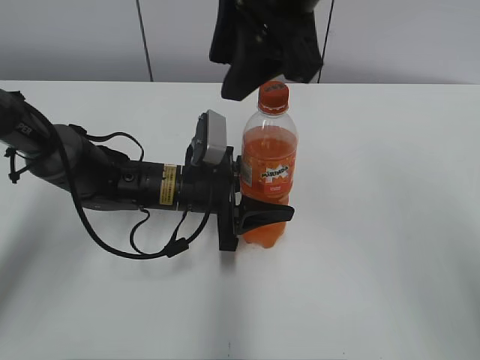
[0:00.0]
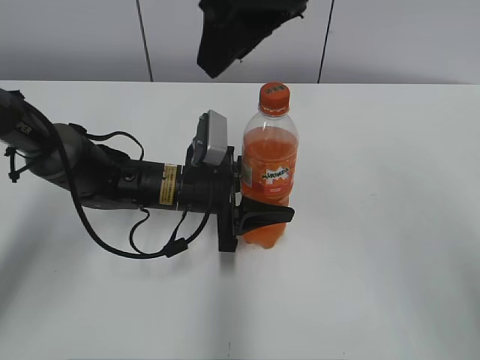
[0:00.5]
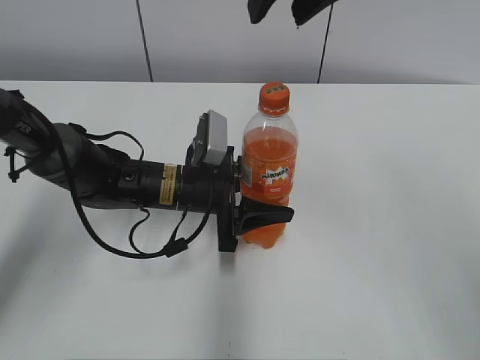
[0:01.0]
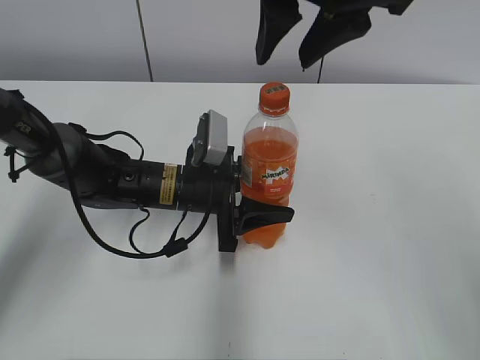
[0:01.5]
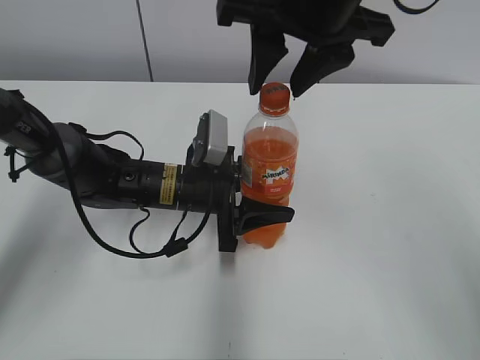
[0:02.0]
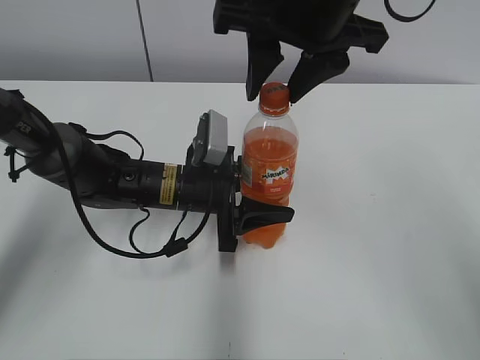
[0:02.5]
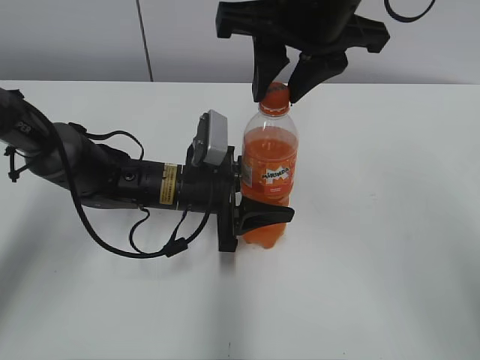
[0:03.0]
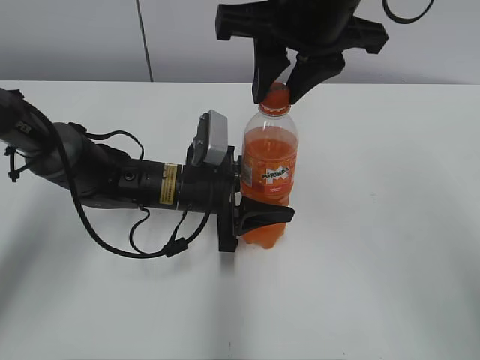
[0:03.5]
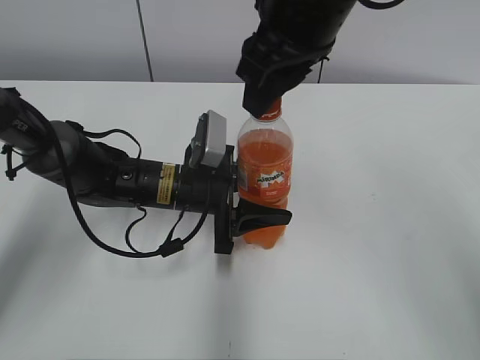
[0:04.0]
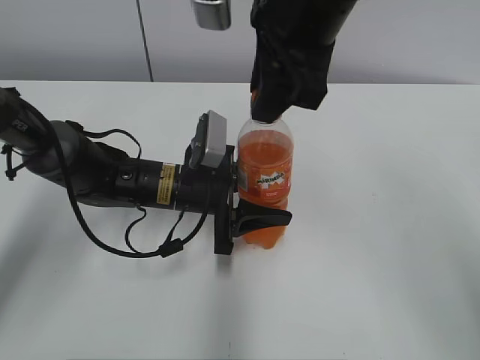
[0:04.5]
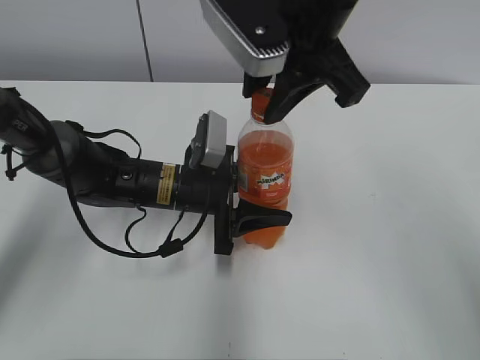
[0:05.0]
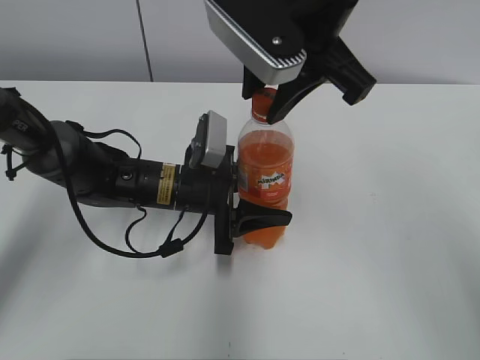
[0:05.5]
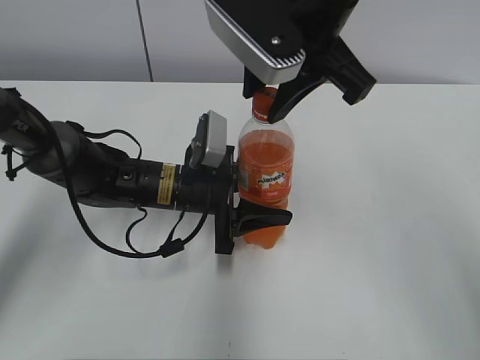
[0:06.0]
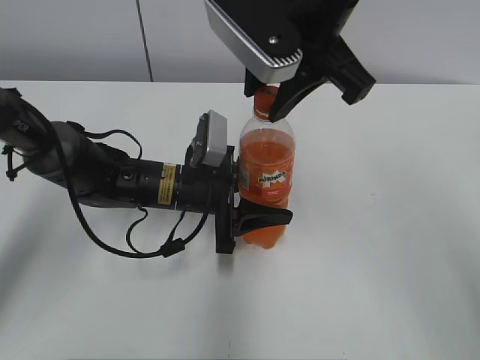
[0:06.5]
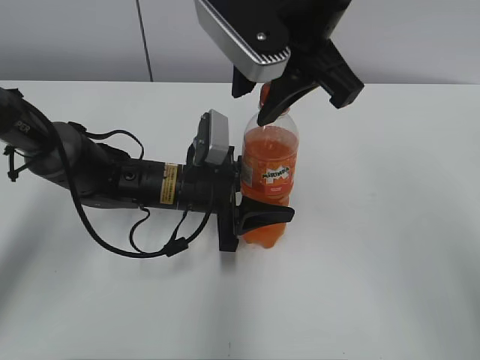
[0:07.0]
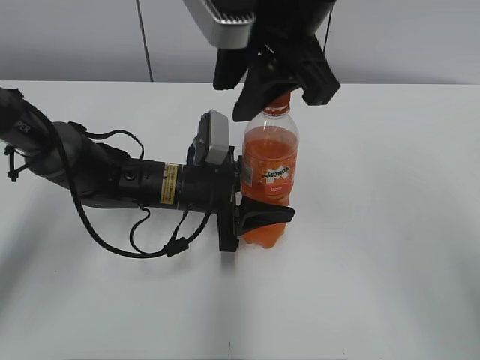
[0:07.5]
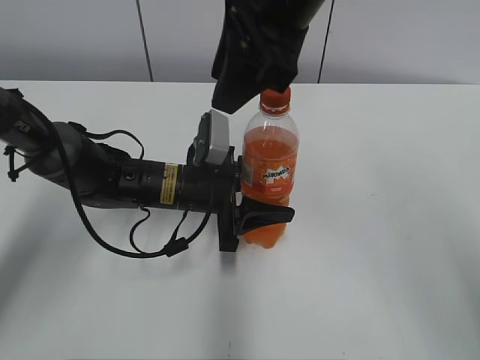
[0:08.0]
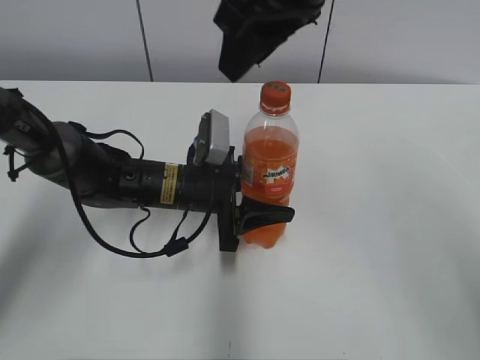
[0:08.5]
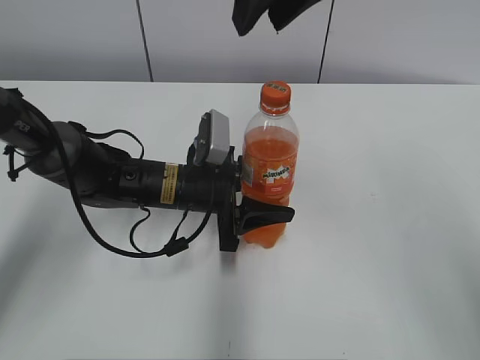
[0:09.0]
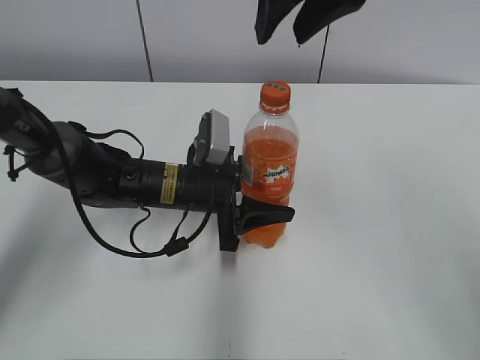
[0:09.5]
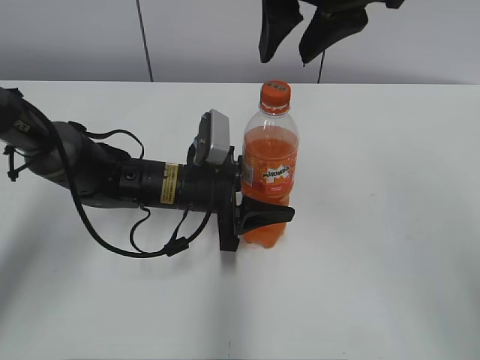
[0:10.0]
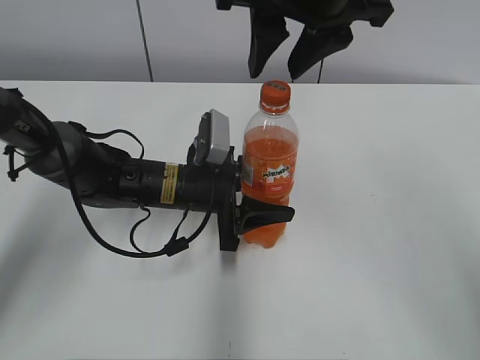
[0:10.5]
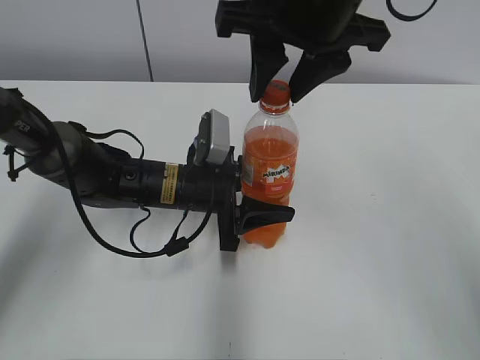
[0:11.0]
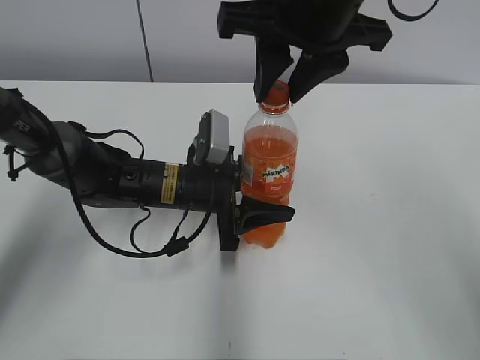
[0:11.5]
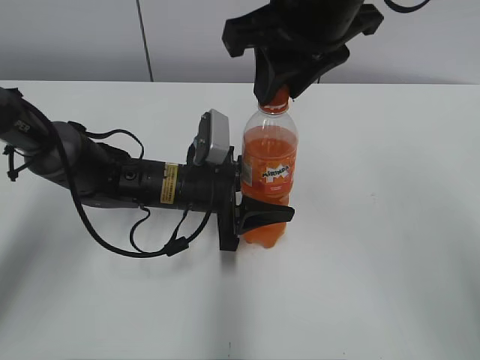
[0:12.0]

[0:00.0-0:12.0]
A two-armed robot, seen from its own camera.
0:02.0 to 0:04.0: The right gripper closes.
0:10.0 to 0:12.0: The right gripper closes its fingers.

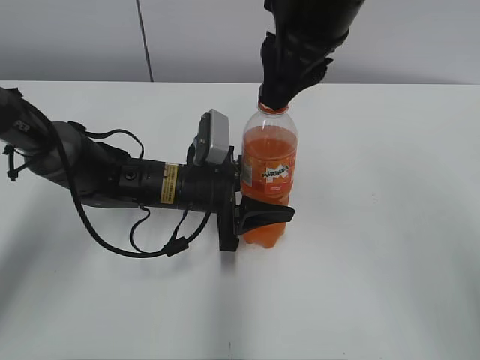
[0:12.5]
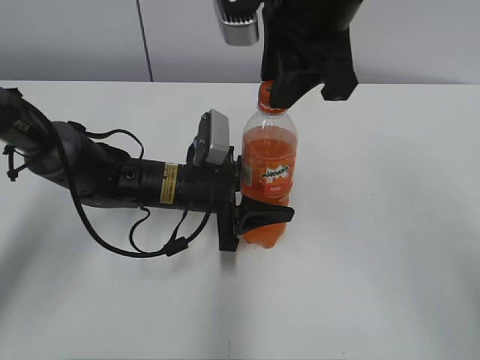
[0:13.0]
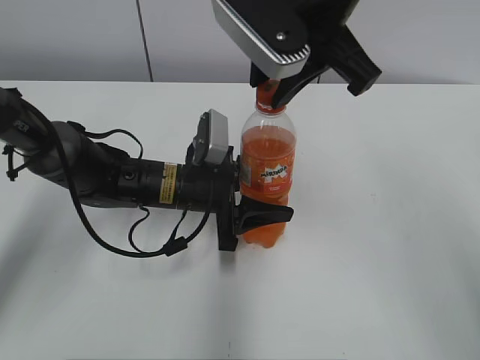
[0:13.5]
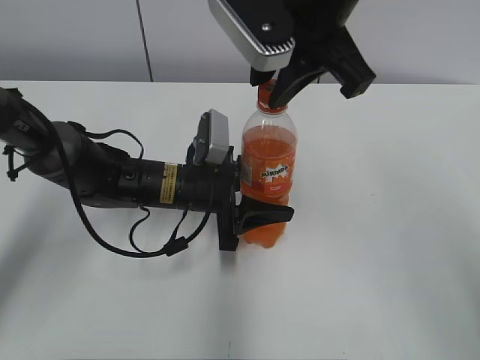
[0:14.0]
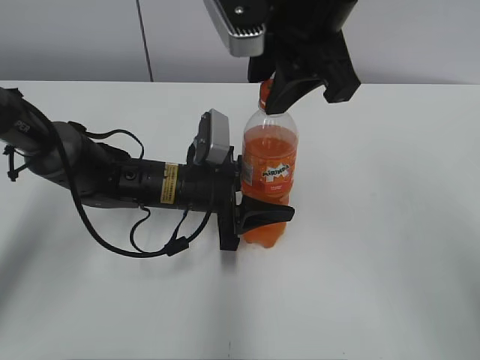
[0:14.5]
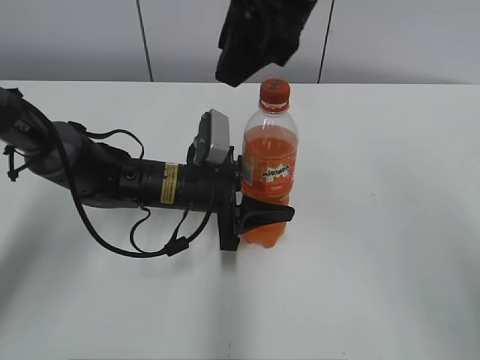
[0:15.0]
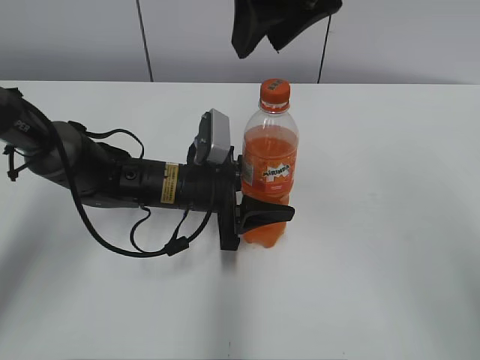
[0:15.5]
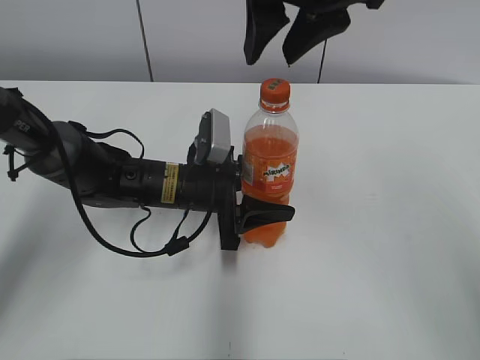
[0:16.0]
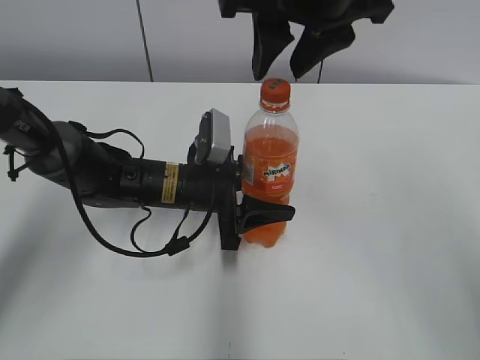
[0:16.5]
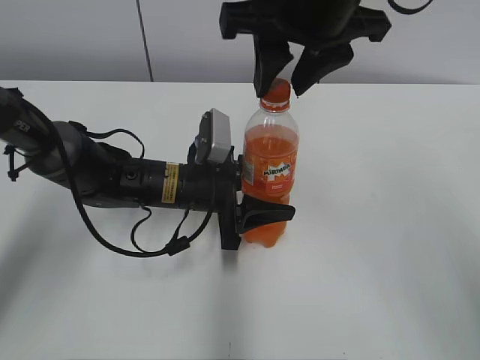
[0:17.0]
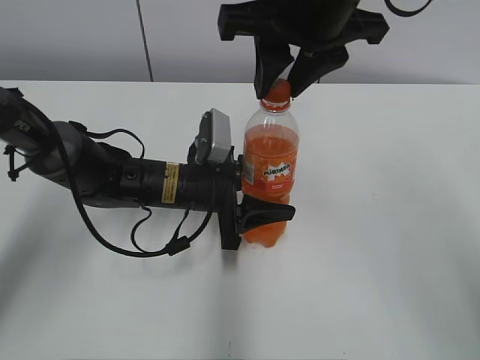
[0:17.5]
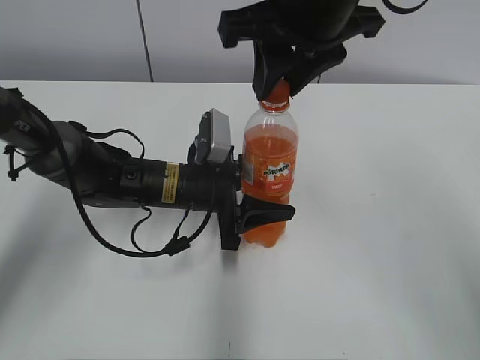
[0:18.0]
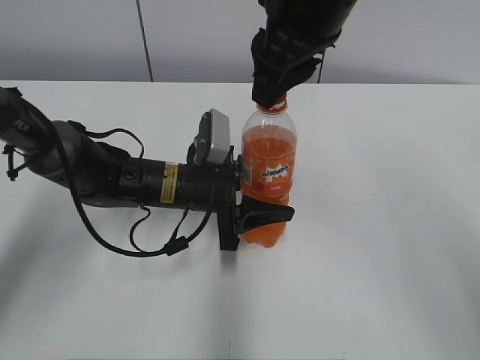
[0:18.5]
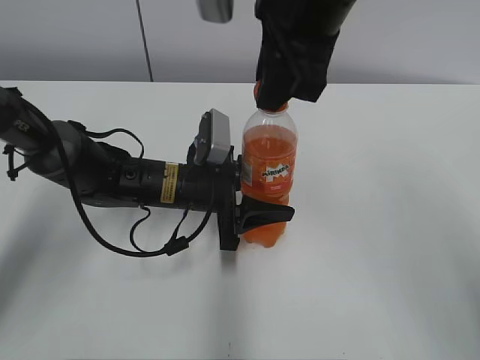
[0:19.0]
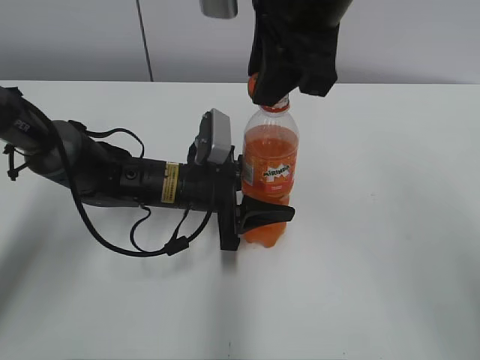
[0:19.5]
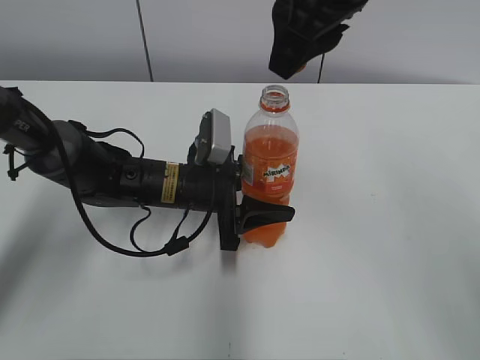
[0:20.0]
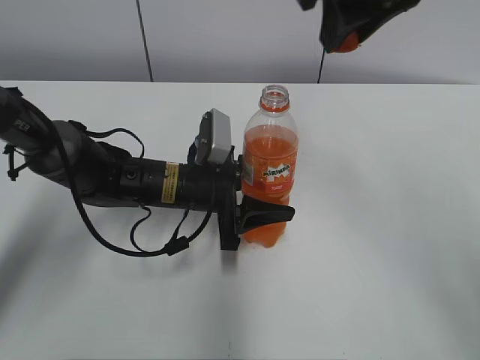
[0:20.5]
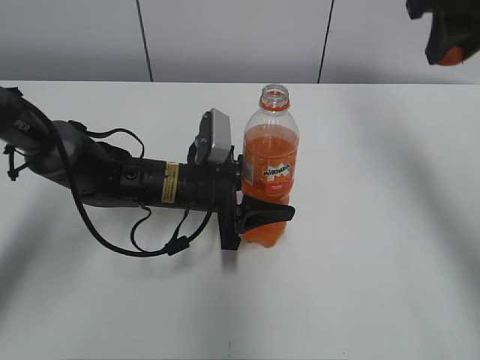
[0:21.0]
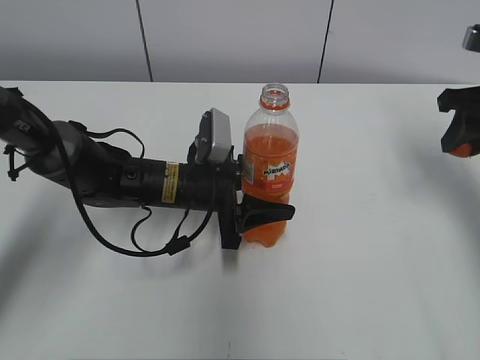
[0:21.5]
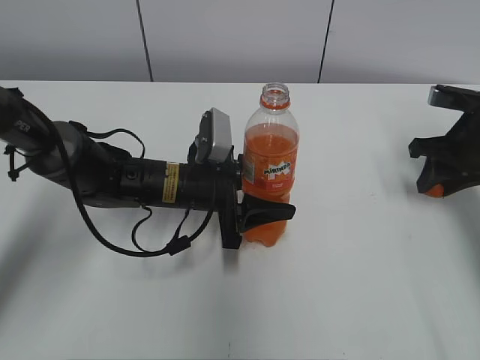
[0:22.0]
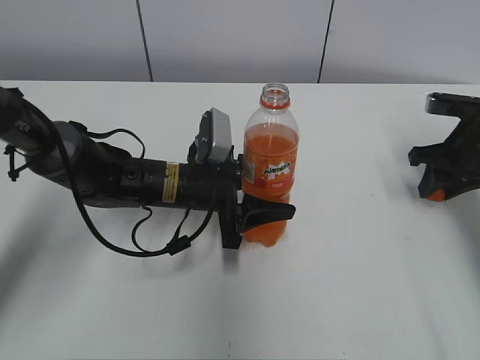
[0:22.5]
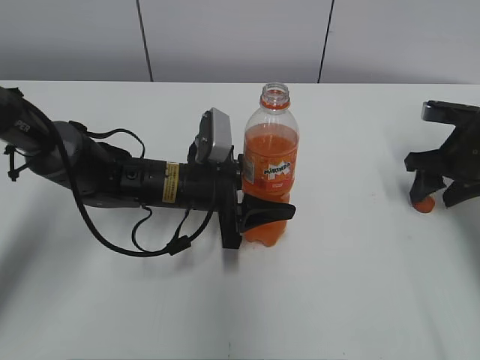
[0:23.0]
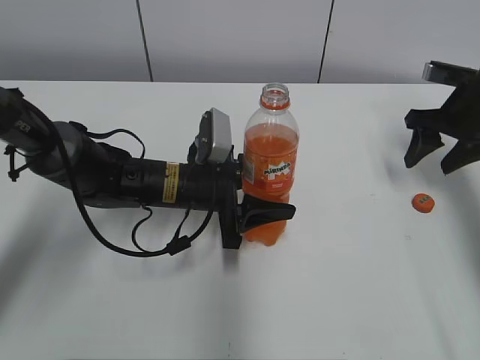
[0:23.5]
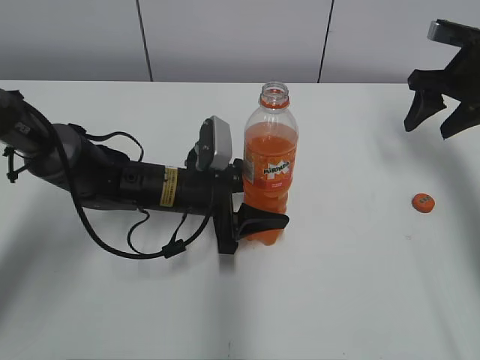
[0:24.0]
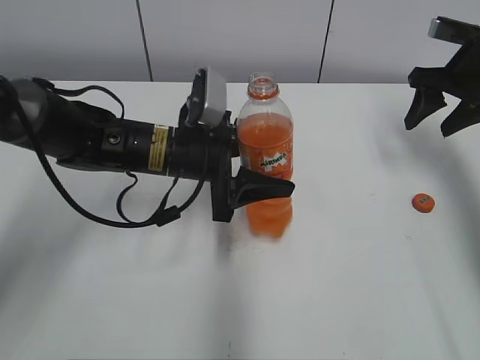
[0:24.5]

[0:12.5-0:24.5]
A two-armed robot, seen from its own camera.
Step, 0:18.5 to 0:23.0: Place the bottle cap on the right.
0:16.5 to 0:18.5: The right gripper closes.
0:18.5 to 0:20.5: The right gripper heads to the right, covering roughly 5 cm.
0:20.5 to 0:22.5: The right gripper is displaced downward and to the right by roughly 30 cm.
0:22.5 to 0:24.5: The right gripper heads upward and forward, covering about 10 cm, and opens its fingers. Meanwhile the left gripper is displaced upward by approximately 5 cm.

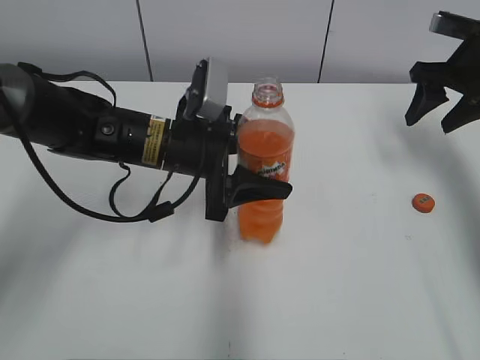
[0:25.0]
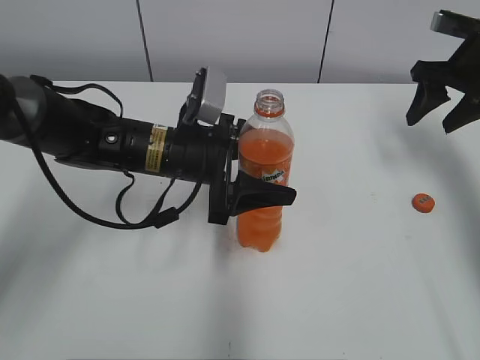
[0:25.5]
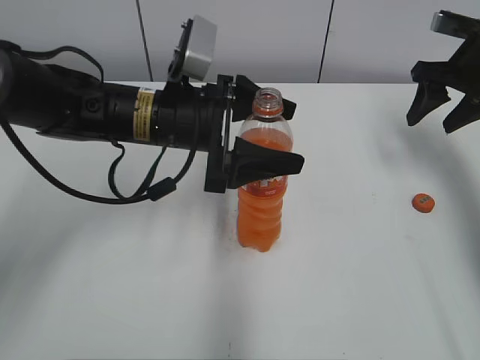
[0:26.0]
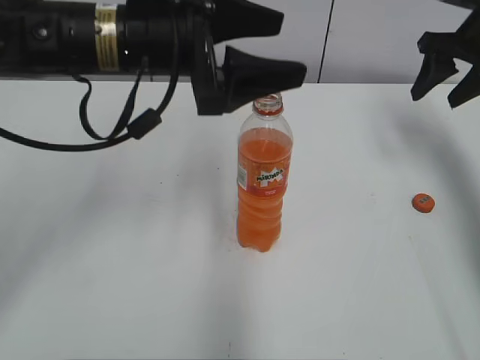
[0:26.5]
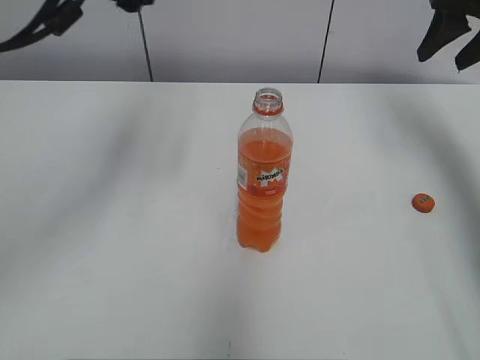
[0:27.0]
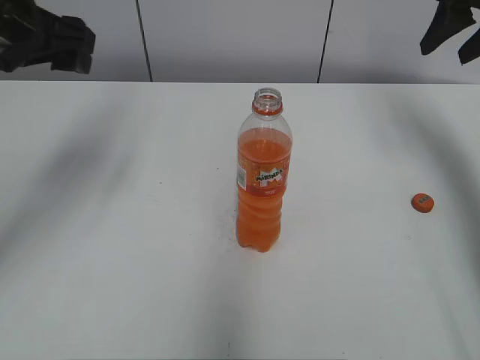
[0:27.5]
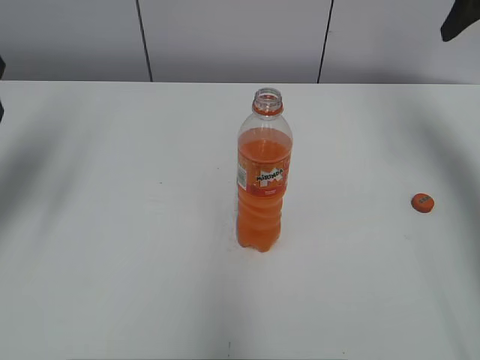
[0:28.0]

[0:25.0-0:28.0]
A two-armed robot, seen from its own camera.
0:25.0 to 0:26.5: The left gripper shifts about 10 cm upward, and opens up.
0:26.5 to 0:28.0: The left gripper is displaced to the left by some 20 cm; the right gripper is displaced upward by about 10 cm.
